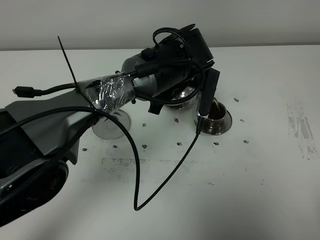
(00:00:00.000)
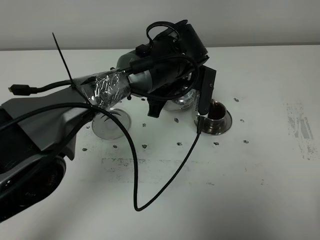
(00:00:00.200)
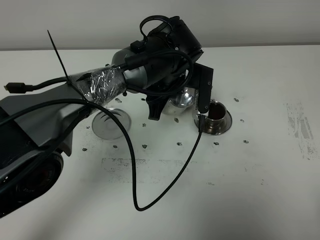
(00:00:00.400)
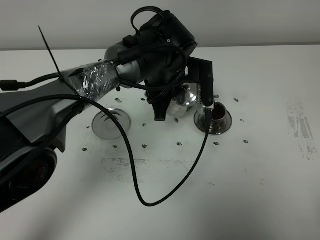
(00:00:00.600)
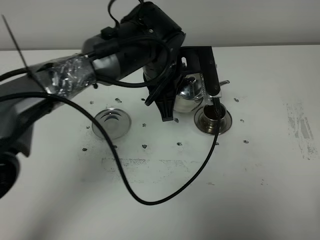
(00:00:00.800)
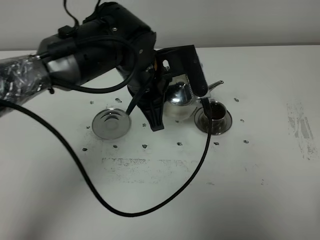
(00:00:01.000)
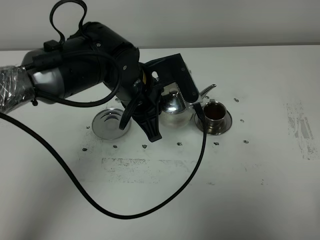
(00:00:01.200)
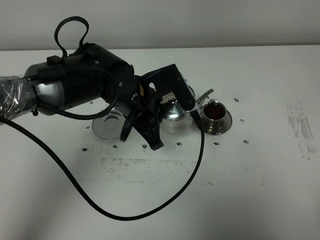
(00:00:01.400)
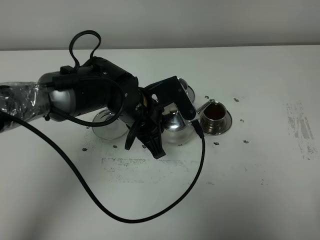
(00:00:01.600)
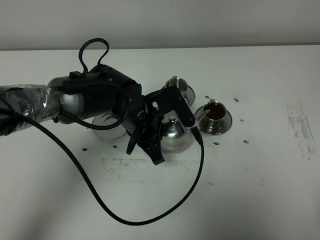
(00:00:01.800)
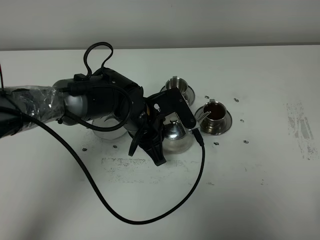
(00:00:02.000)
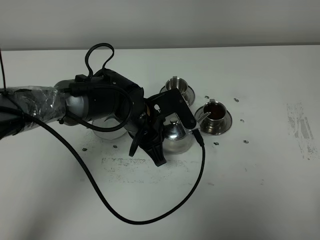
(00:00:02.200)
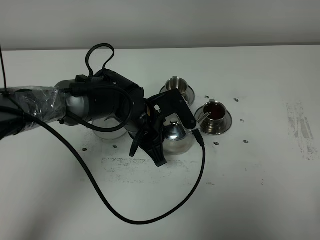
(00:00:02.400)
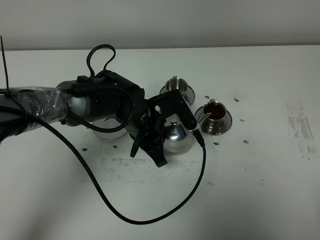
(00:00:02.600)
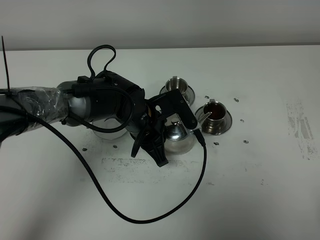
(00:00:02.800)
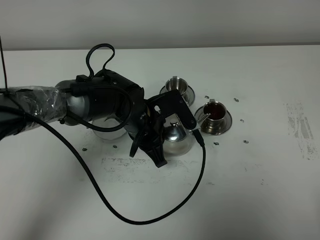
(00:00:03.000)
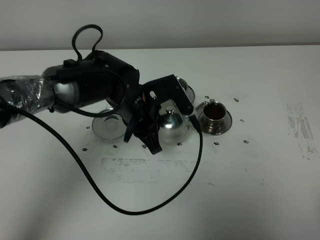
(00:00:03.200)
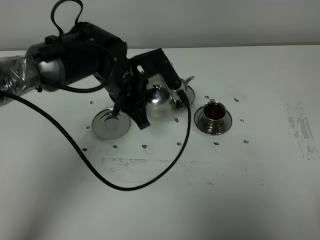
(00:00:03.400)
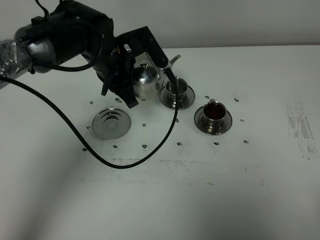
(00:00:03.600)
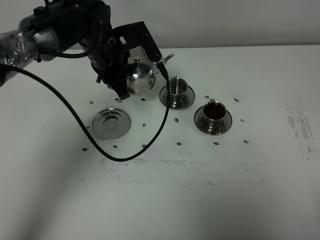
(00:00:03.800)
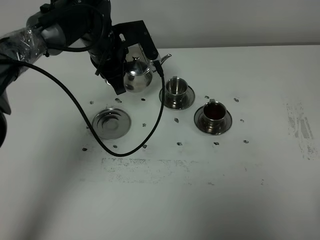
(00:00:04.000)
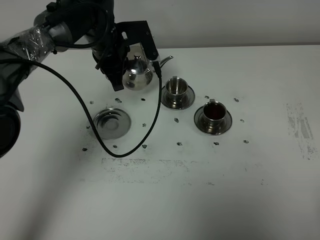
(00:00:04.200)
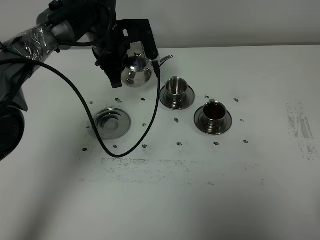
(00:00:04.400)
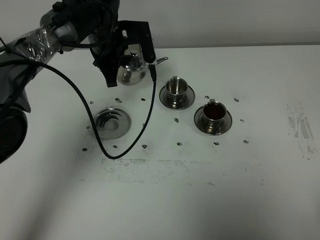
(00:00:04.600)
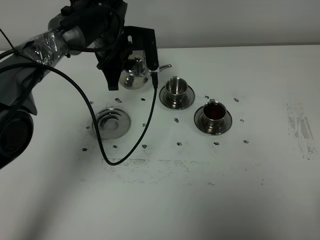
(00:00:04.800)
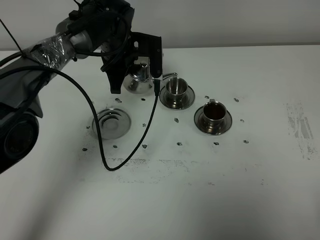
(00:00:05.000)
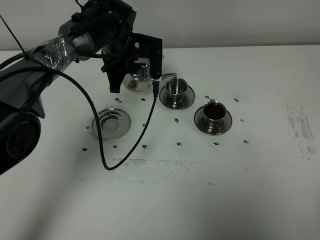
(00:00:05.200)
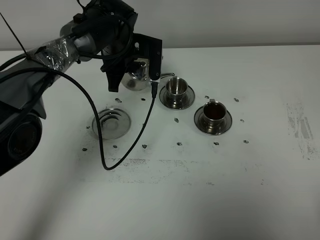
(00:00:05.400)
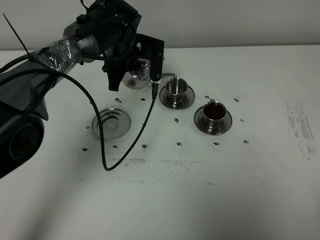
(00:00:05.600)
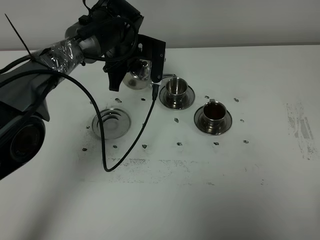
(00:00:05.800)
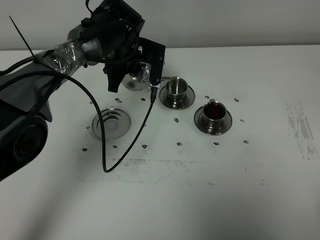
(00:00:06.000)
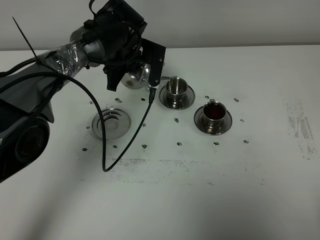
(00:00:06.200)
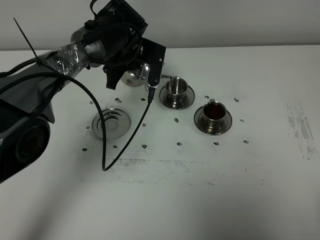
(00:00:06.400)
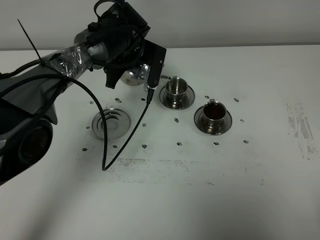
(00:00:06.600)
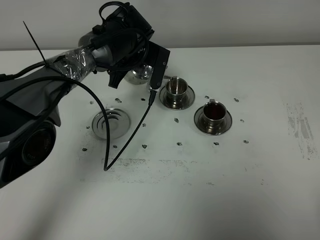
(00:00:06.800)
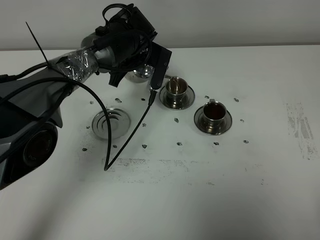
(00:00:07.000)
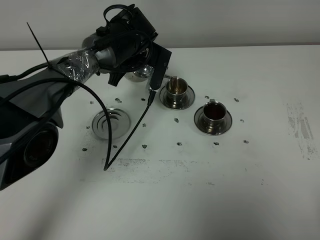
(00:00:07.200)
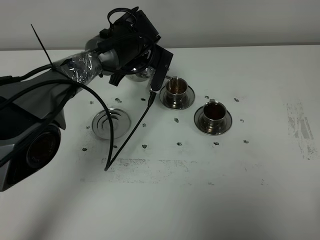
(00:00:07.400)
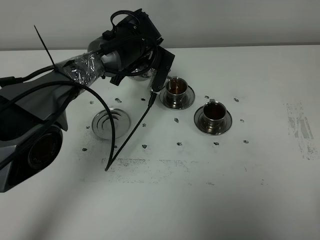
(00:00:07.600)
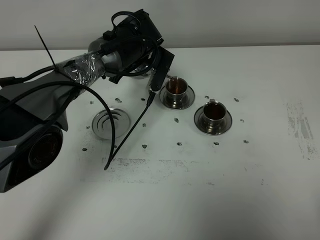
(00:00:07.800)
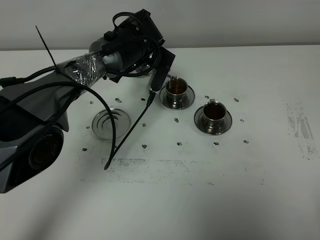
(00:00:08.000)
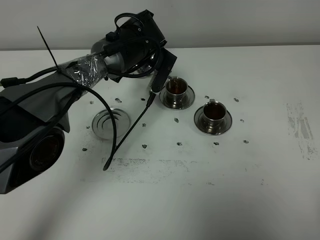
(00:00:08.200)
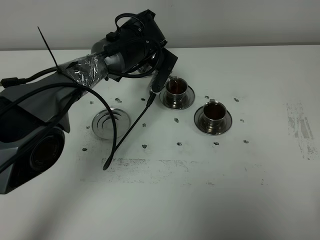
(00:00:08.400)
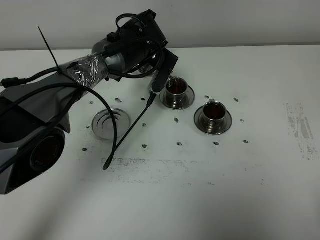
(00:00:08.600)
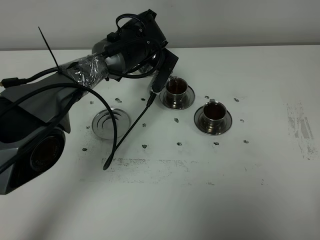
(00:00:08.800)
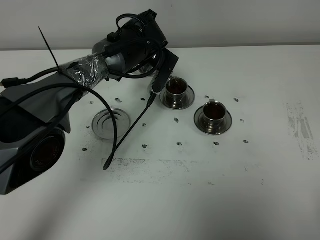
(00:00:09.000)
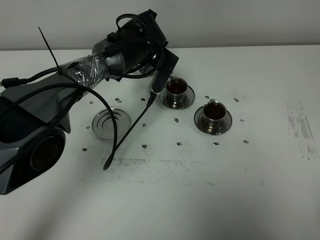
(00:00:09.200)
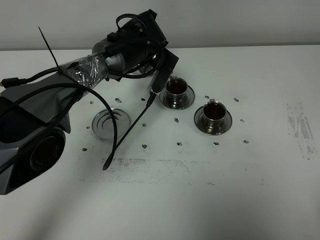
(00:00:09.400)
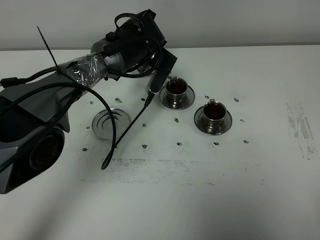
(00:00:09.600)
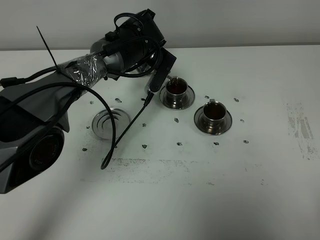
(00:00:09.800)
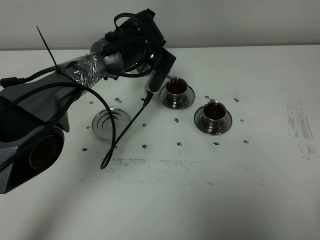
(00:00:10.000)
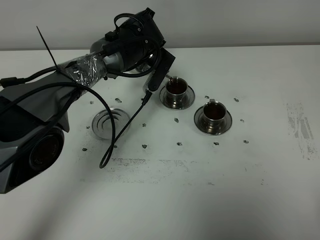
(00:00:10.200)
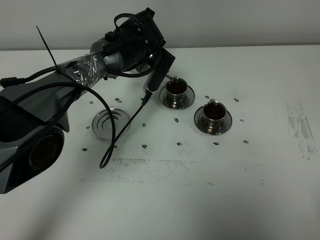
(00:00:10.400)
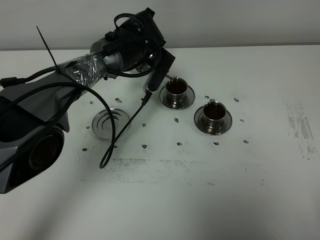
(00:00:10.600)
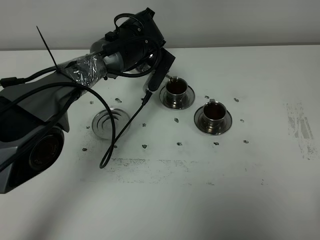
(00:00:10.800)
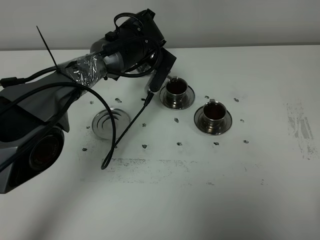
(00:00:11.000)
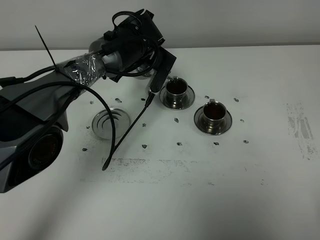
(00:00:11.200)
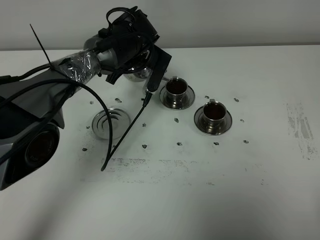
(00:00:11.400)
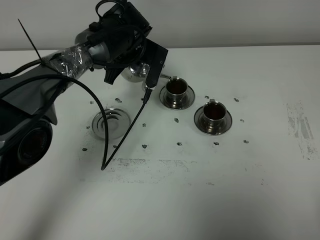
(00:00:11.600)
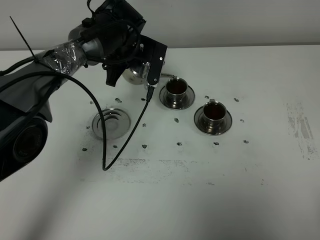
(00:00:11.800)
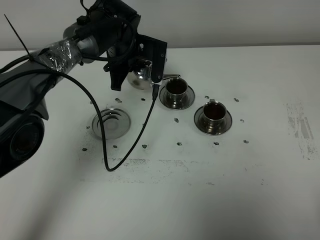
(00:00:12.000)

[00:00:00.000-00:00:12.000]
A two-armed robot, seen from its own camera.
Task of the whole recording: grasp the stainless steel teapot and pour the tea into the two stainless steel teacups one by one, put the stainless steel teapot back in its original place.
Step, 00:00:00.000 to 00:00:11.800: Pour tea into the teacup with the left gripper.
00:00:00.000 to 00:00:01.600: The left gripper is displaced to the left and backward by approximately 10 cm.
00:00:01.600 to 00:00:03.000: The grippers move only a little.
00:00:03.000 to 00:00:04.400: The left gripper is displaced forward, upward and to the left by roughly 15 cm.
00:00:06.000 to 00:00:07.600: The grippers move only a little.
00:00:07.600 to 00:00:09.000: The grippers move only a little.
00:00:09.000 to 00:00:10.400: Neither gripper changes place.

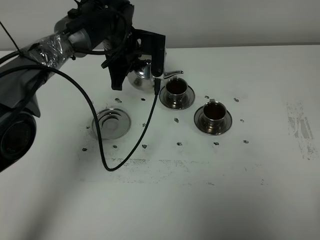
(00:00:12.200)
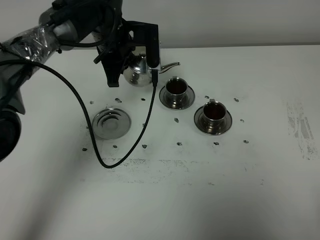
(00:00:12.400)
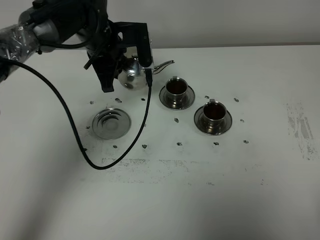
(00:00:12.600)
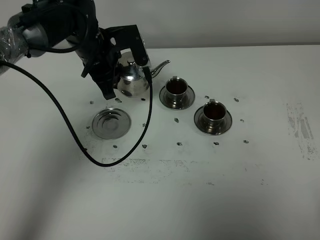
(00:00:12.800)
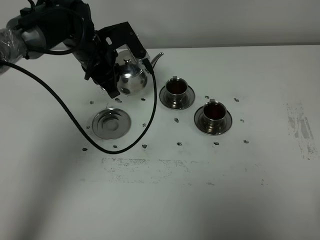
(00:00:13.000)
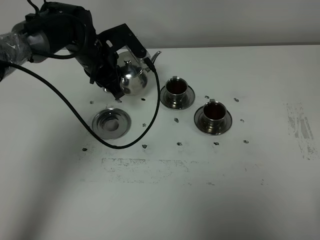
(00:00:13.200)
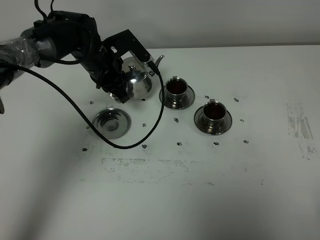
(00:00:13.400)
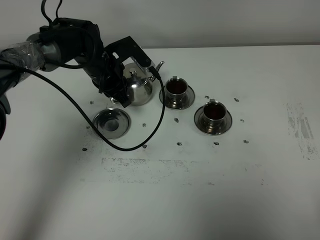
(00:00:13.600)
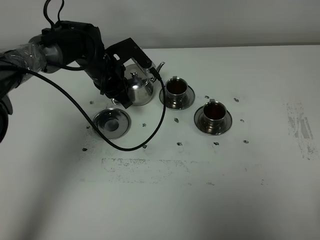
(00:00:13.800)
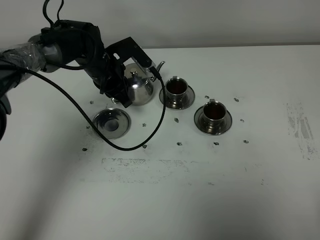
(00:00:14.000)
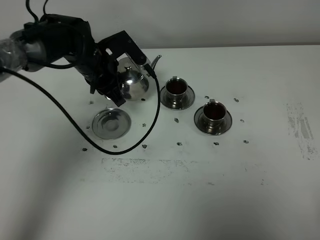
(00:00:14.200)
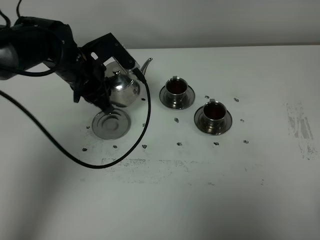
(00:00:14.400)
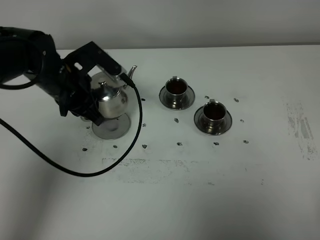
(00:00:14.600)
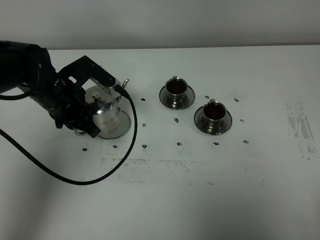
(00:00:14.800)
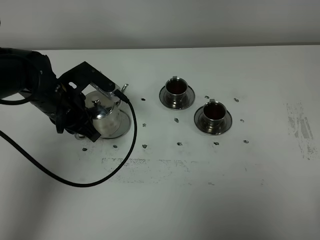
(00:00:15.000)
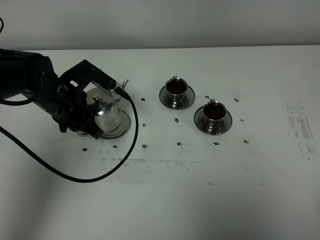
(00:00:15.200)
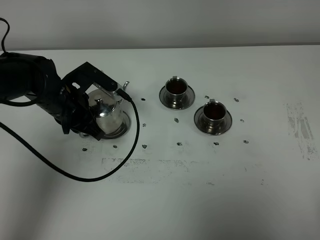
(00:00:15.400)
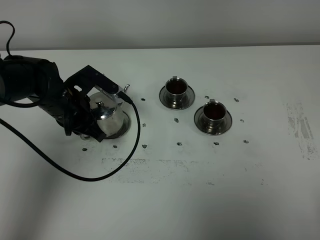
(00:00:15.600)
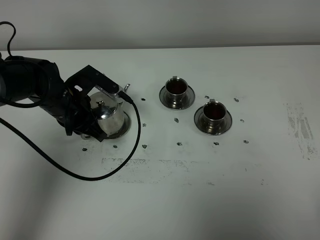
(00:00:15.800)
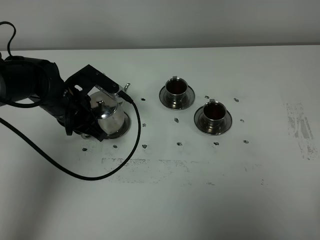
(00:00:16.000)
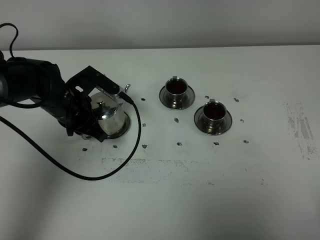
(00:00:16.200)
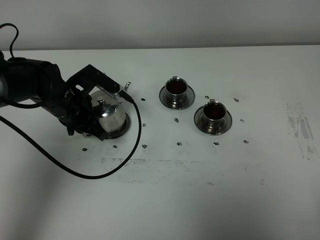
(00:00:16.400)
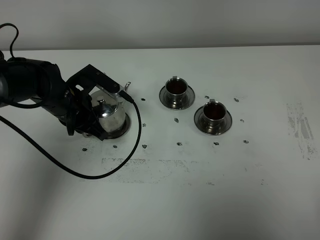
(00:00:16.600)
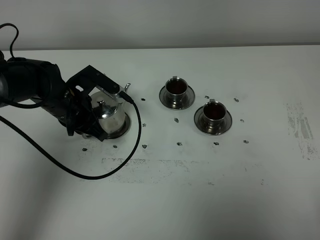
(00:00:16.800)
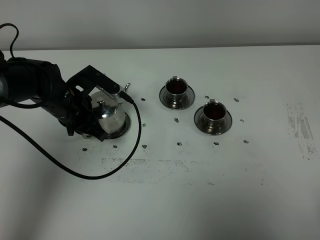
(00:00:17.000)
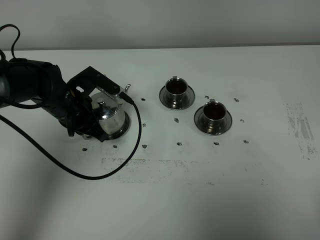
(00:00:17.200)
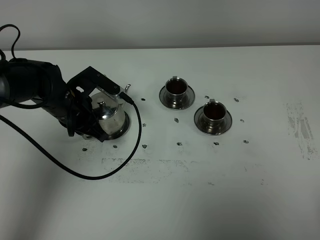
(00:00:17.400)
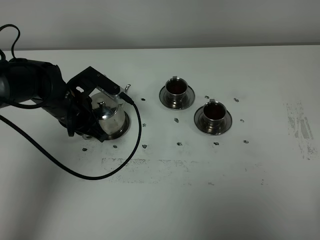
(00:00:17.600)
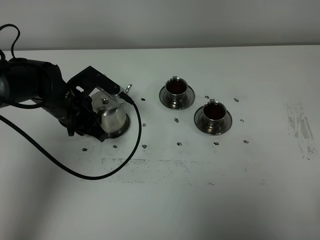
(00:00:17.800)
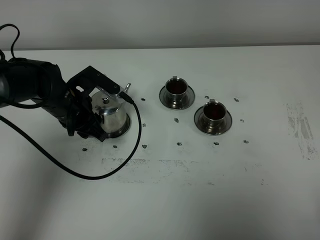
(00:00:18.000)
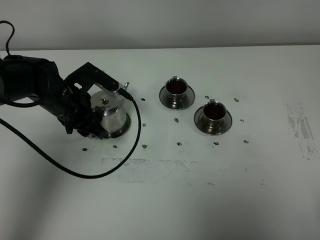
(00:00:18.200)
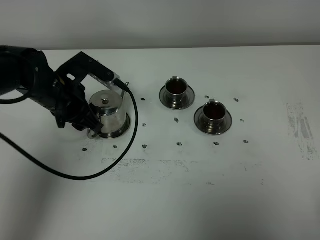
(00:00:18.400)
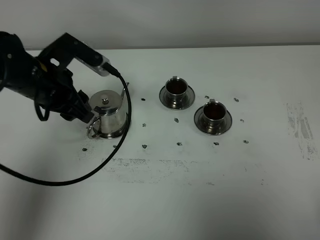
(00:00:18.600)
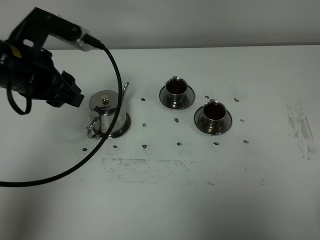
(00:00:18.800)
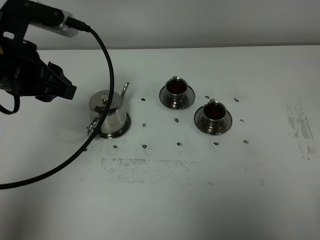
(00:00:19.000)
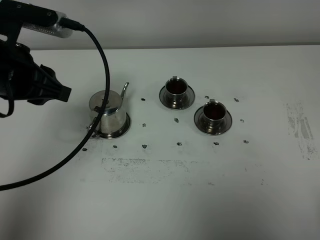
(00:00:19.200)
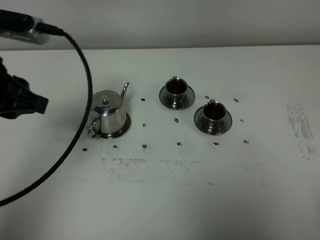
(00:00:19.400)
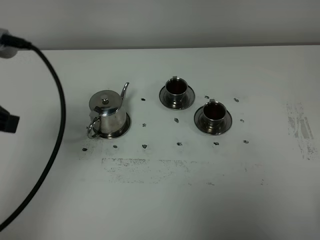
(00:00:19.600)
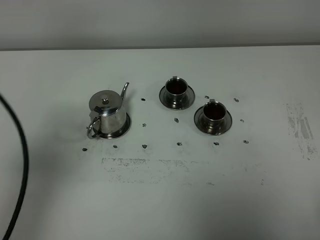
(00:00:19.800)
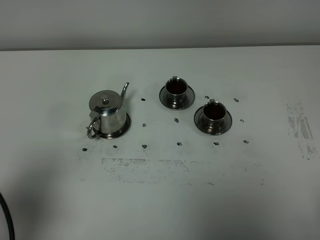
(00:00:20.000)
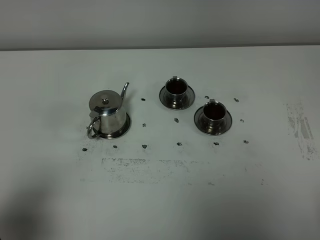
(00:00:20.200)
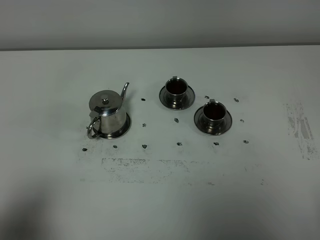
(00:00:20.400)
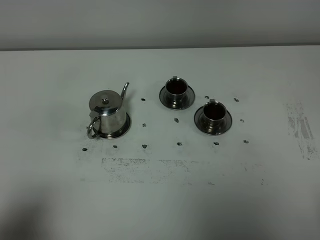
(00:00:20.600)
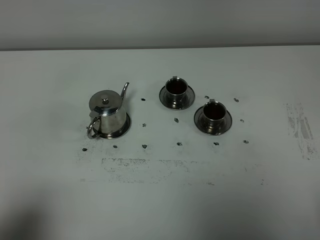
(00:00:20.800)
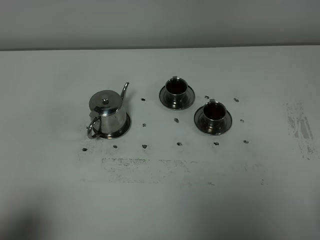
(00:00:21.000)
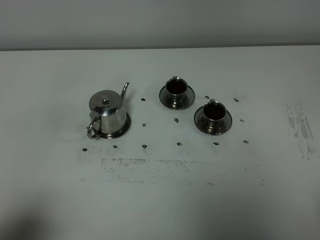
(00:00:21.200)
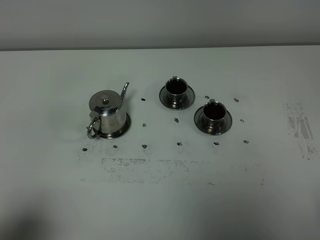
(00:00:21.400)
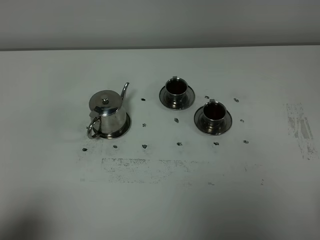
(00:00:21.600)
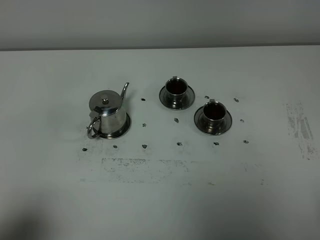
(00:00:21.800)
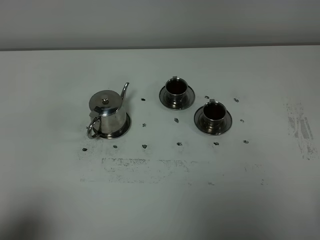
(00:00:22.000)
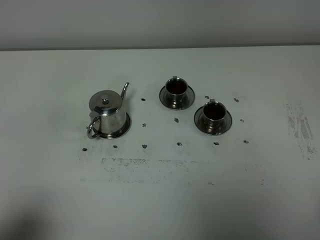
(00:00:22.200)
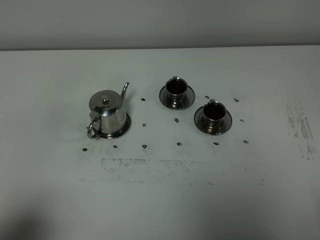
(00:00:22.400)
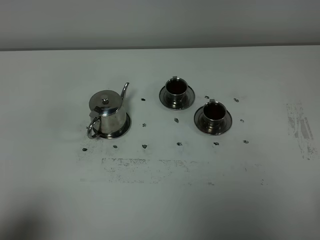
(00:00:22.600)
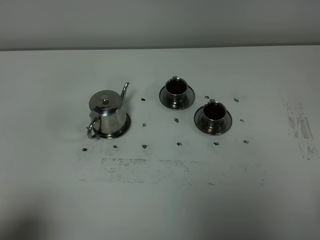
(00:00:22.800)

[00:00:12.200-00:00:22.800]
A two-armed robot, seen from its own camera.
Task of the whole recording: grasp the stainless steel teapot and pour the tea into the two stainless steel teacups one by one, put the stainless steel teapot back in its original place.
00:00:12.200 to 00:00:13.800: The left gripper is displaced downward by approximately 5 cm.
00:00:13.800 to 00:00:15.200: The left gripper travels backward and to the left by about 10 cm.
00:00:15.200 to 00:00:16.800: There are only small adjustments of the grippers.
00:00:16.800 to 00:00:18.200: The left gripper opens.
00:00:18.200 to 00:00:19.800: The left gripper heads backward, upward and to the left, covering approximately 30 cm, and closes.
00:00:19.800 to 00:00:21.200: The left gripper goes about 15 cm backward and downward.
00:00:21.200 to 00:00:22.800: The two grippers keep their place.
